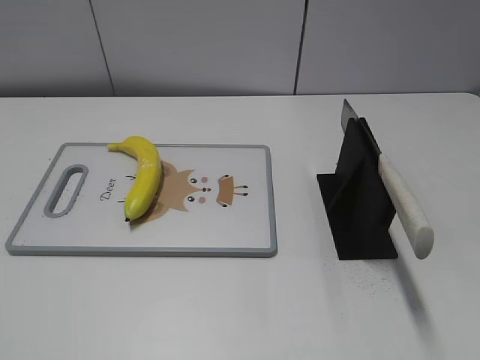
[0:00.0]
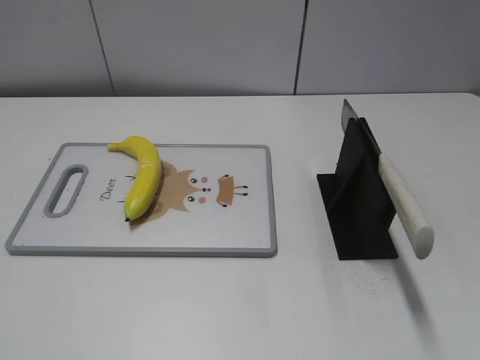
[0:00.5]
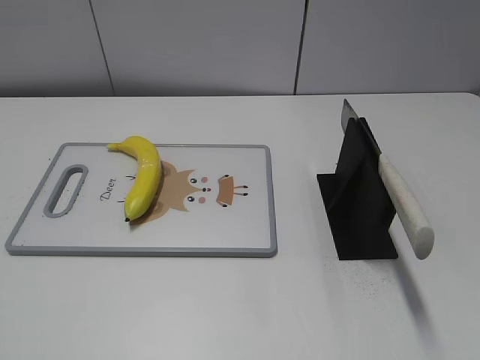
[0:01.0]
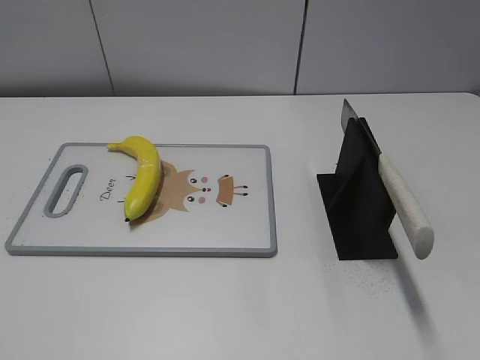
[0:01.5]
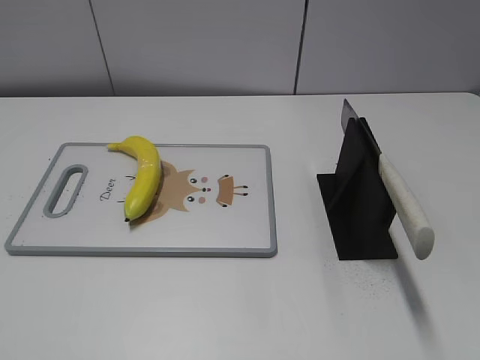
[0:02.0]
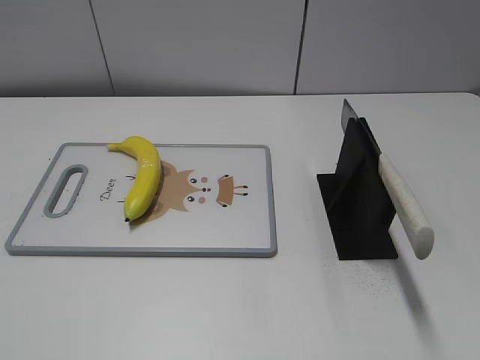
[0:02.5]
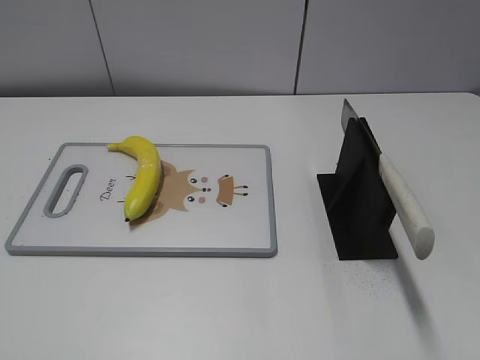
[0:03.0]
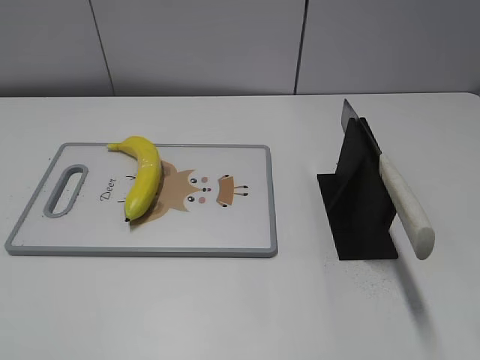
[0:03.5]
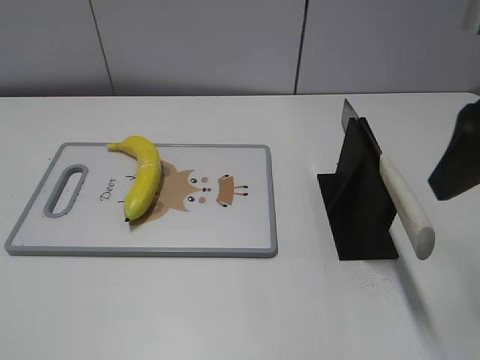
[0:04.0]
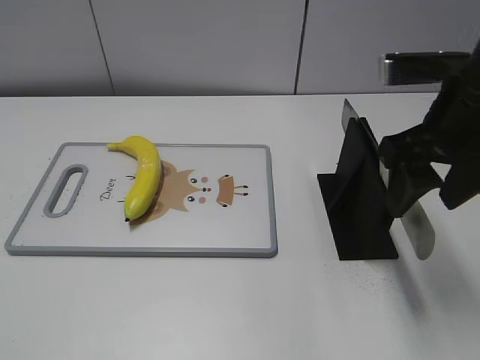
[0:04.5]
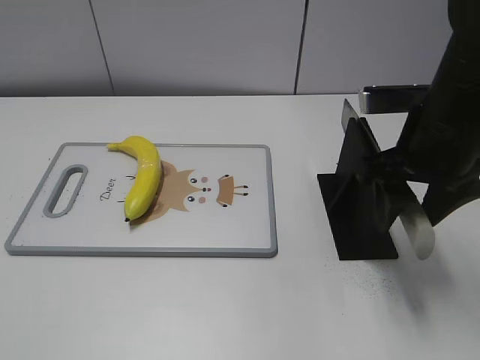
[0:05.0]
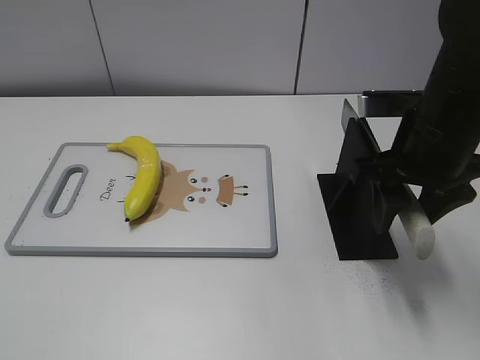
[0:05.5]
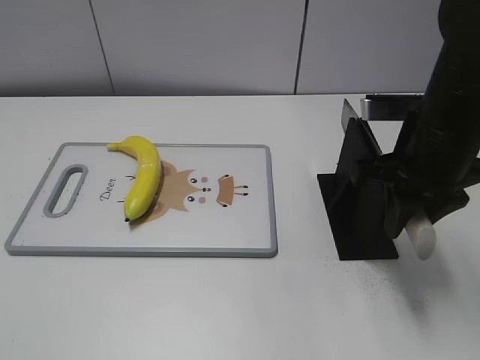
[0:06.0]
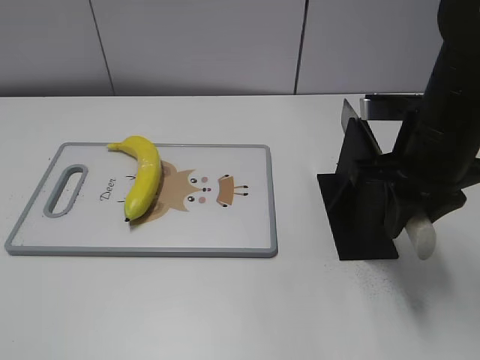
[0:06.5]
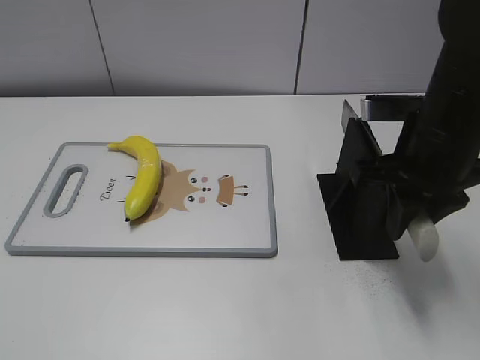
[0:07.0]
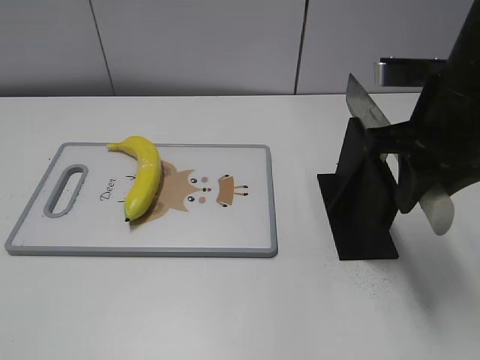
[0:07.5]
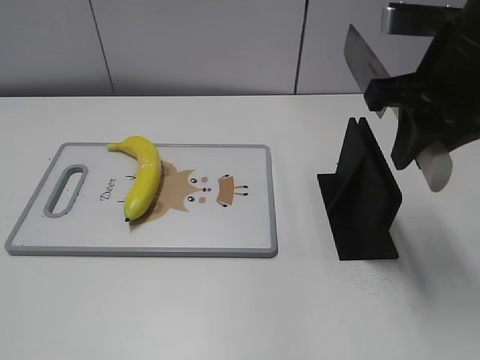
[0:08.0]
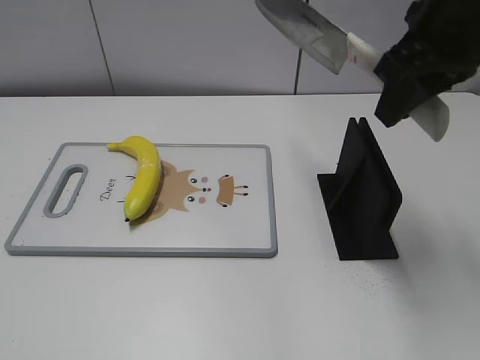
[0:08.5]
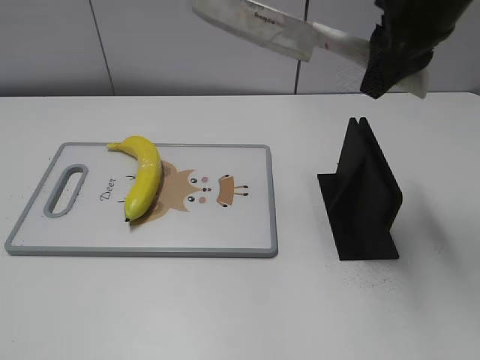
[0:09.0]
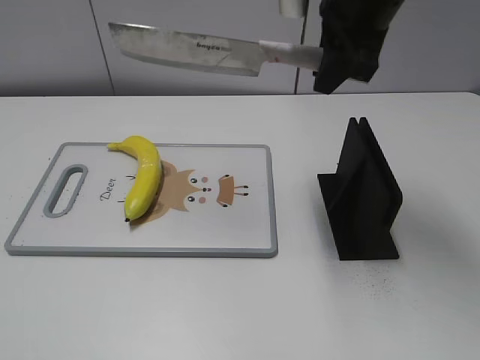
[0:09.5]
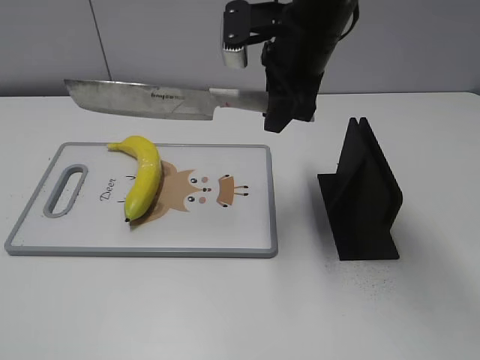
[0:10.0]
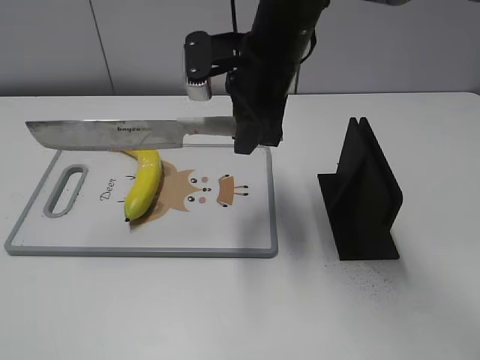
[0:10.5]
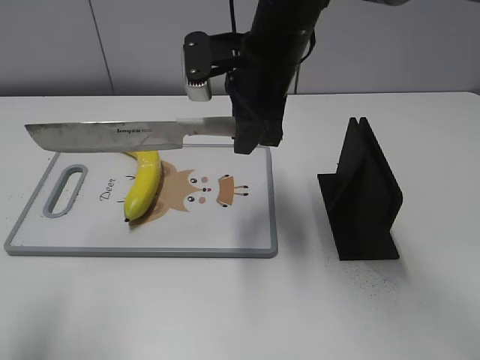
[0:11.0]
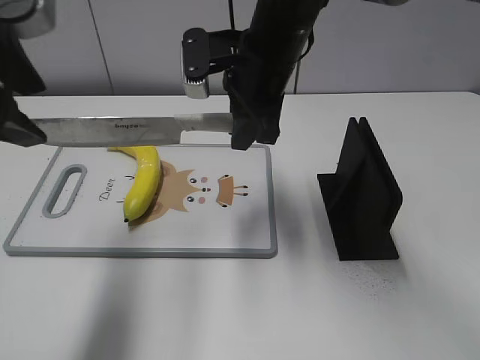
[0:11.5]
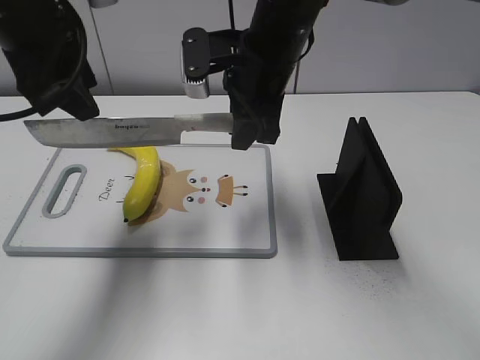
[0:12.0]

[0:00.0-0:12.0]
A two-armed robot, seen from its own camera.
Task of the whole recording: cut plastic banana.
Step, 0:00.0 to 0:09.0: Grab the knife handle with your right hand.
0:02.0 to 0:04.0: The right gripper moves forward, about 20 cm.
0:04.0 to 0:06.0: The right gripper shifts about 10 cm downward and forward, and closes its fingers.
0:06.0 to 0:08.0: The right gripper is displaced upward by some 10 cm.
0:08.0 to 0:10.0: The right gripper goes roughly 15 cm to the left and forward.
0:10.0 to 0:12.0: The left gripper heads forward, covering about 35 cm.

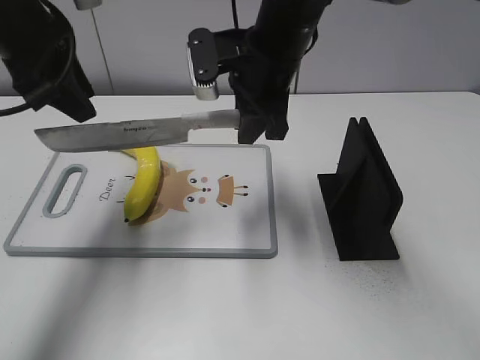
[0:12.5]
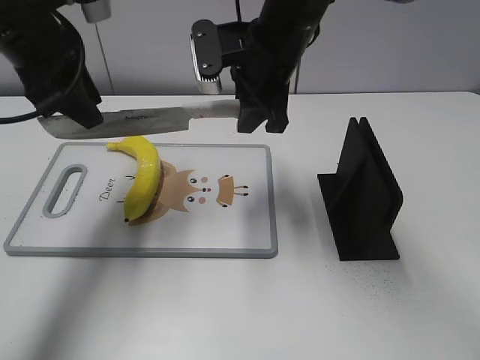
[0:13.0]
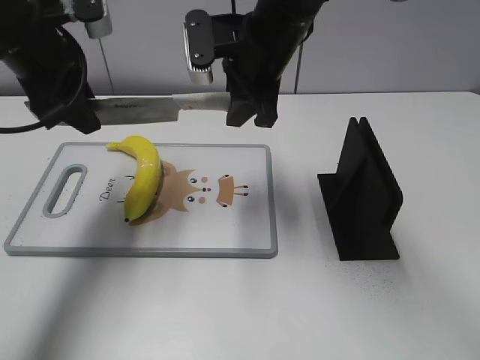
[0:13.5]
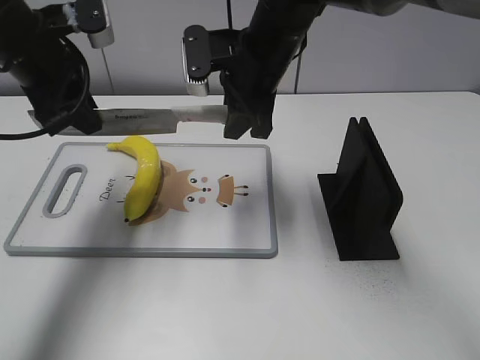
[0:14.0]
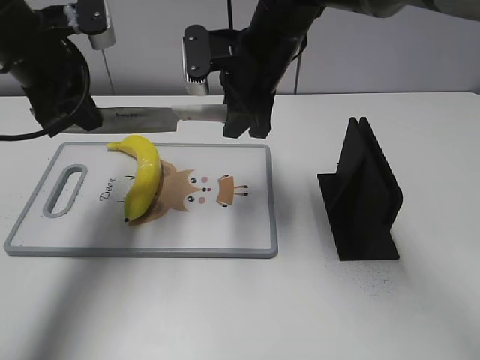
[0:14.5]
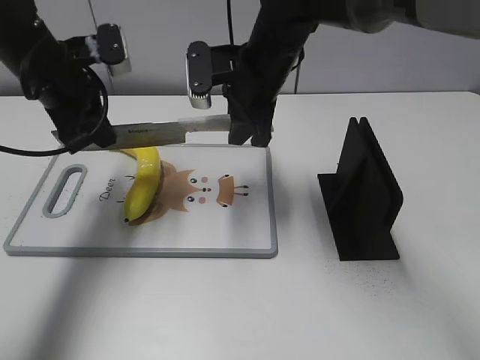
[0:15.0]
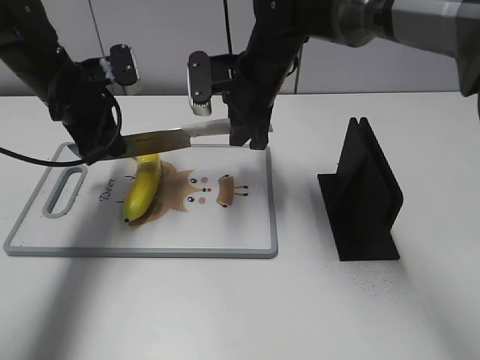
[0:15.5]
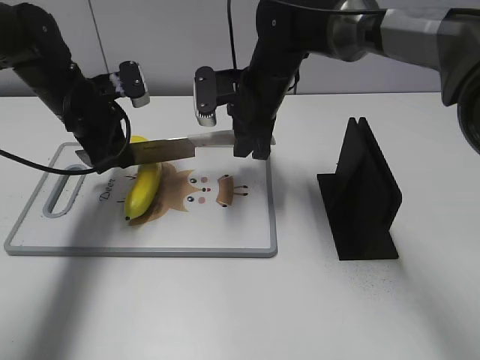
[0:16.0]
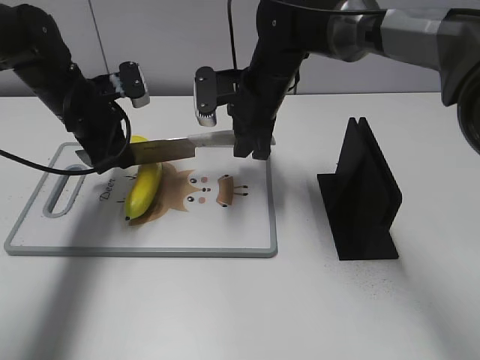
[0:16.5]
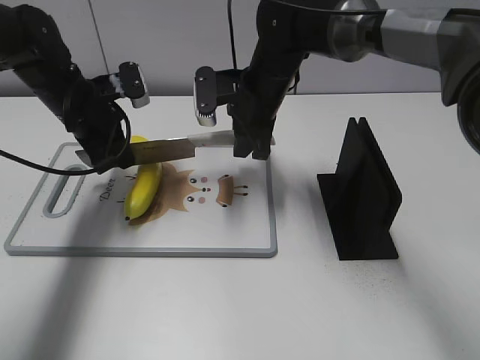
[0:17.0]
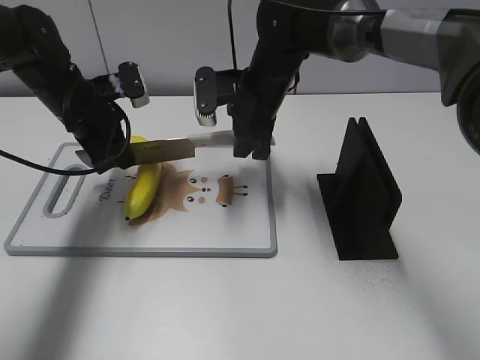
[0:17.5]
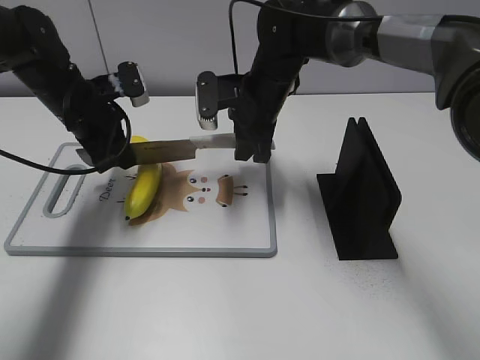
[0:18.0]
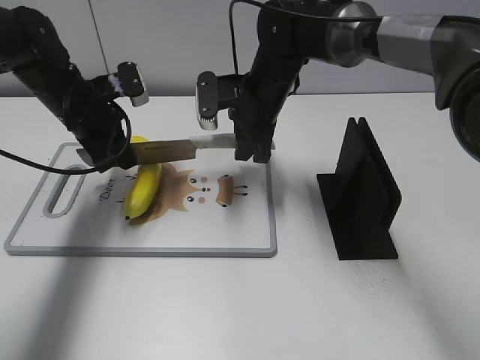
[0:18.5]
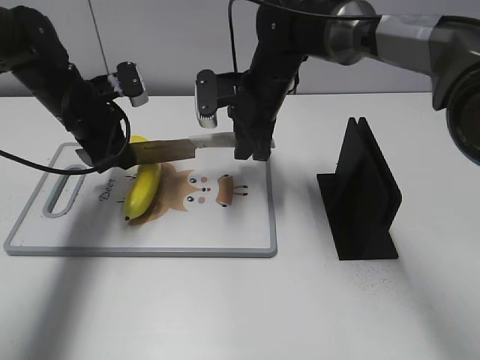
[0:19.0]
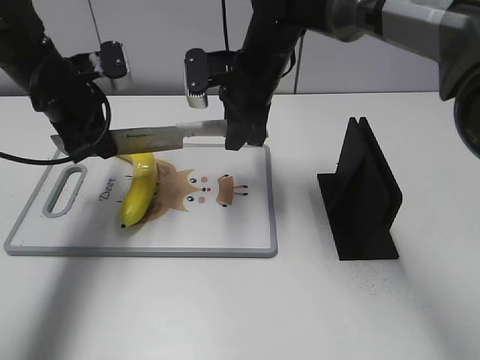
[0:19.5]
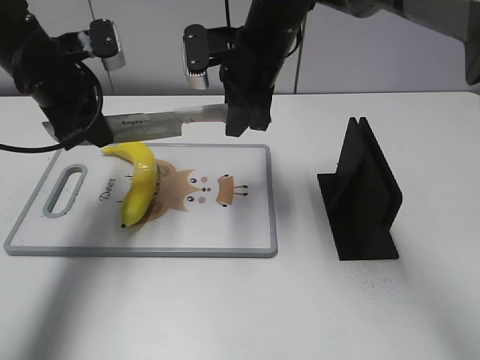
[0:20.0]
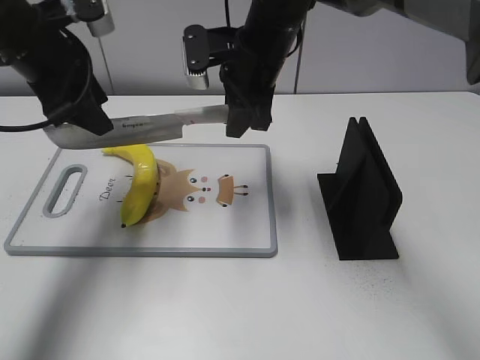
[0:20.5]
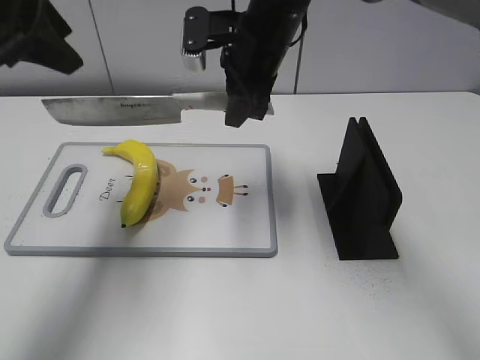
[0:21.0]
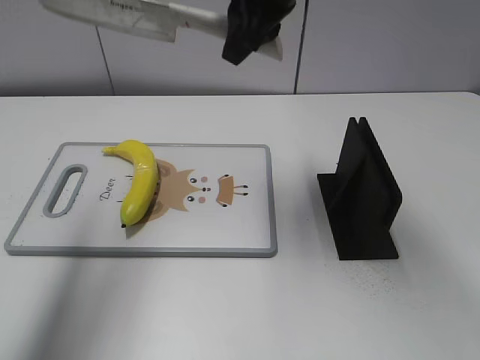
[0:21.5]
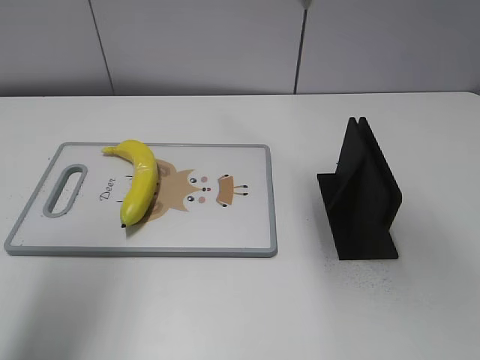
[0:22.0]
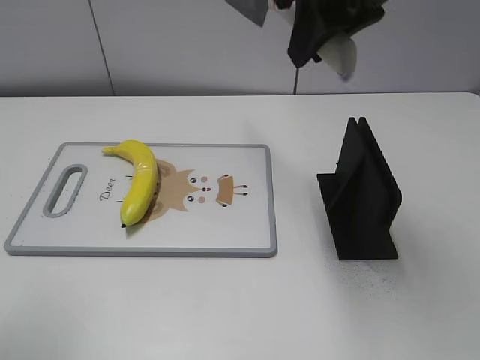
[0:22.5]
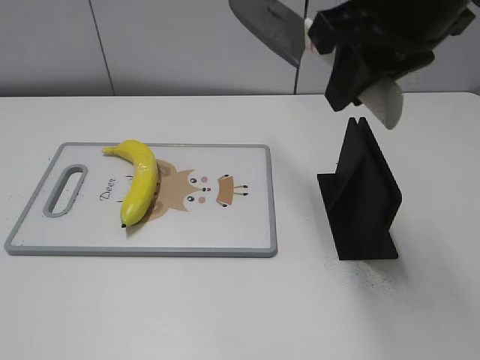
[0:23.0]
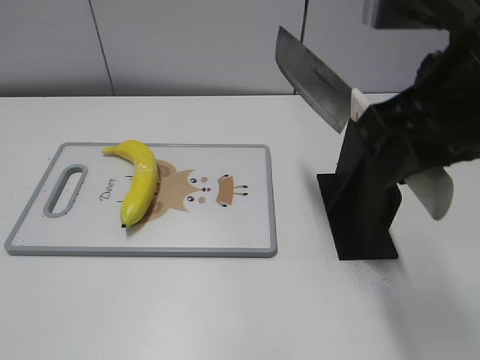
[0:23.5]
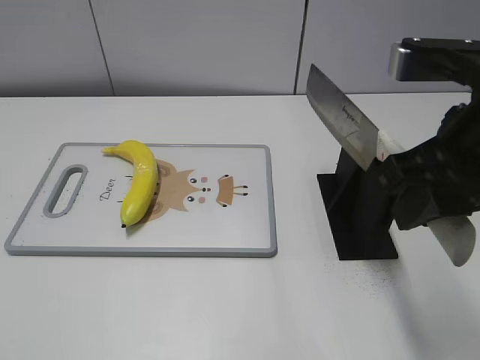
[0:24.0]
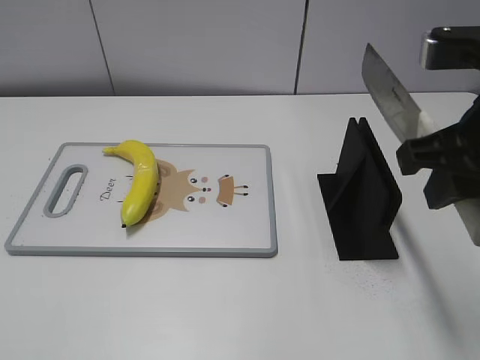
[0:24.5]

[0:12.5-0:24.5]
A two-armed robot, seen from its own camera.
Task of the whole recording: cut plastic banana.
Step, 0:12.5 to 0:17.0: Lift the knife with your right hand.
Step, 0:17.5 to 0:19.5: Cut the banana with your right hand.
0:12.5 to 0:14.5: The left gripper closes.
0:14.5 to 0:16.5: The left gripper is displaced downward by roughly 10 cm. Meanwhile the right gripper travels downward by roughly 5 cm.
0:16.5 to 0:18.5: Both grippers stay put.
0:18.5 to 0:20.5: The right gripper travels upward by roughly 10 cm, while the left gripper is displaced upward by approximately 15 cm, and opens up.
0:20.5 to 0:22.5: The left gripper moves backward and upward, some 25 cm, while the right gripper moves upward, backward and to the right, approximately 20 cm.
0:22.5 to 0:24.5: The right gripper travels backward, to the right and downward by about 15 cm, while the left gripper shifts approximately 15 cm backward and downward.

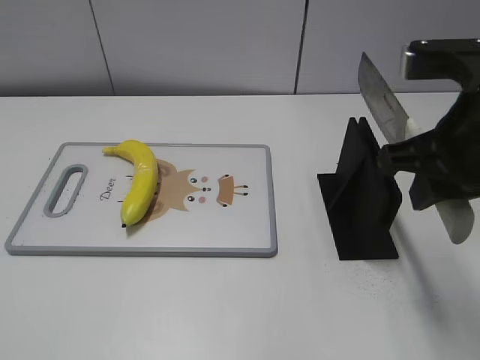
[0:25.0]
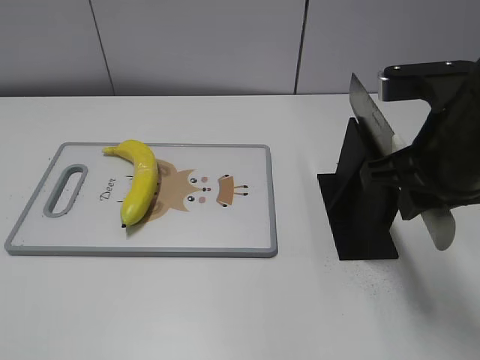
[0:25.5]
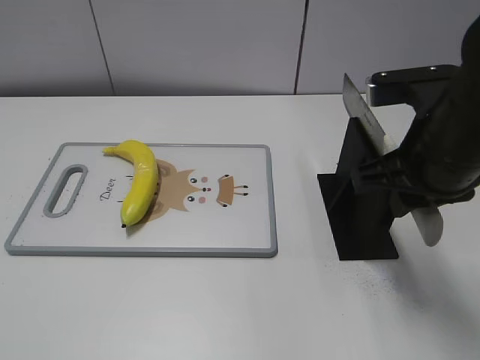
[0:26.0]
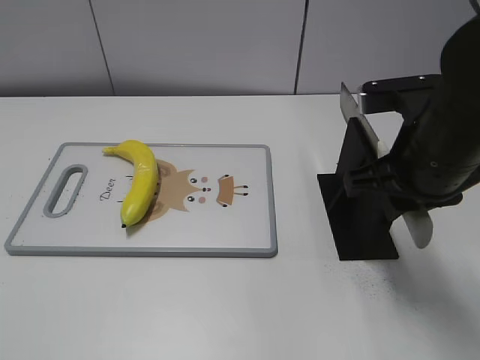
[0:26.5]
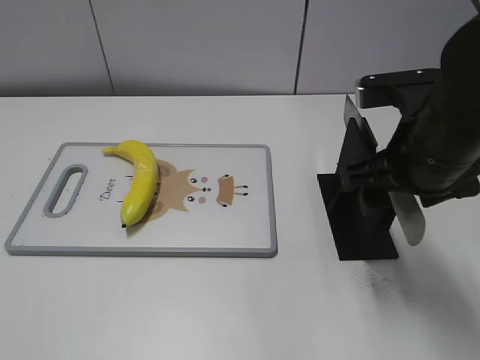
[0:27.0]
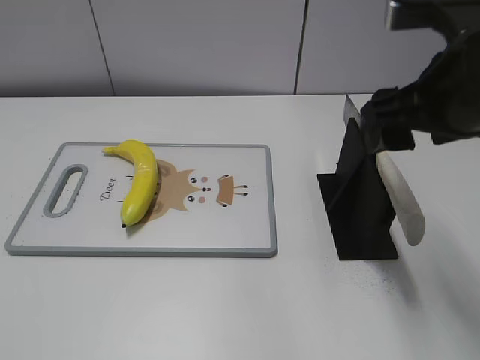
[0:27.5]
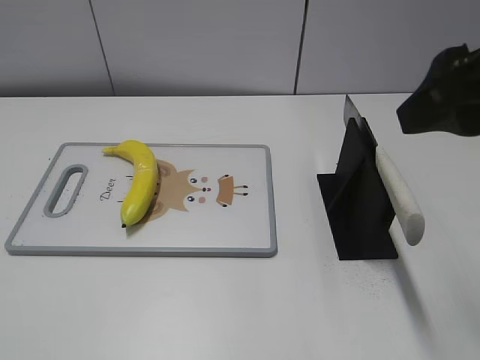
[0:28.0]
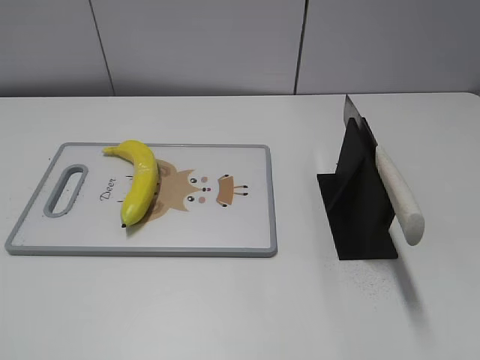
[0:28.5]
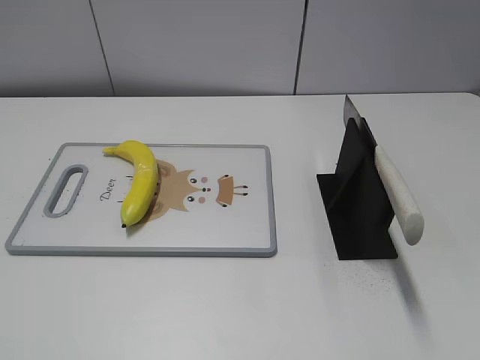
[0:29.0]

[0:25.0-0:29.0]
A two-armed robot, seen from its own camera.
Task of the whole recording: cut plastic banana.
0:25.0 to 0:27.0: The right gripper shifts by approximately 5 cm, and opens up.
0:27.0 to 0:29.0: The right gripper heads backward and to the right, covering some 25 cm.
